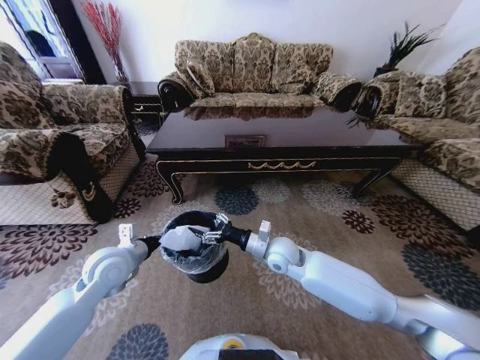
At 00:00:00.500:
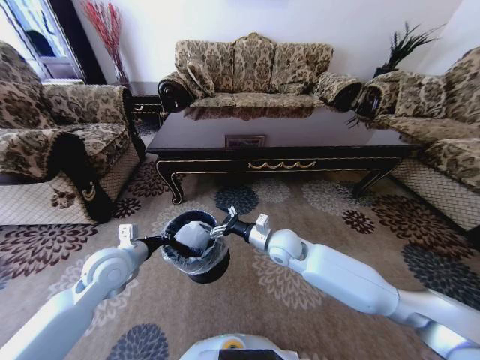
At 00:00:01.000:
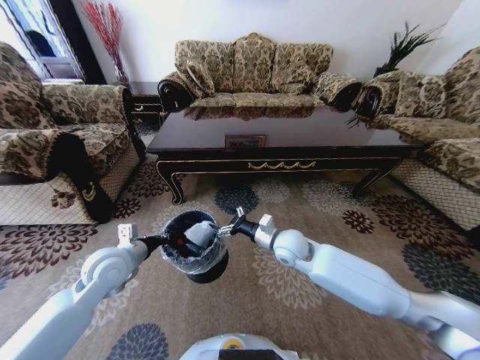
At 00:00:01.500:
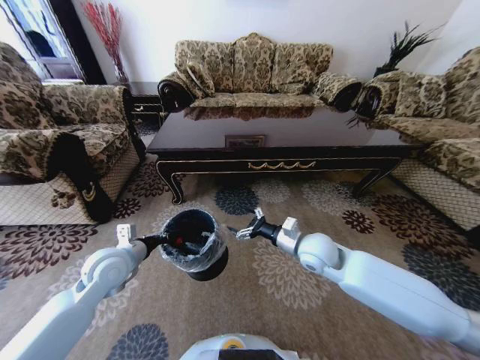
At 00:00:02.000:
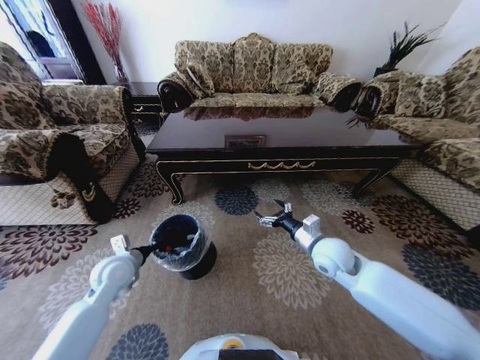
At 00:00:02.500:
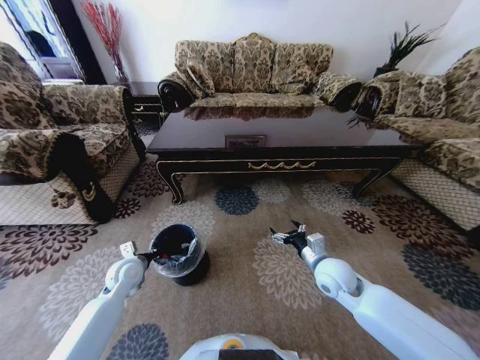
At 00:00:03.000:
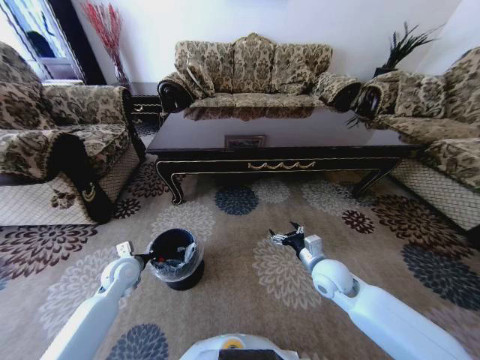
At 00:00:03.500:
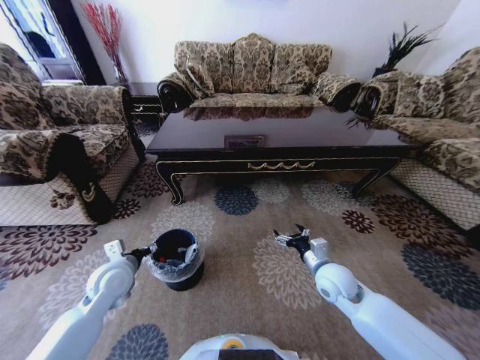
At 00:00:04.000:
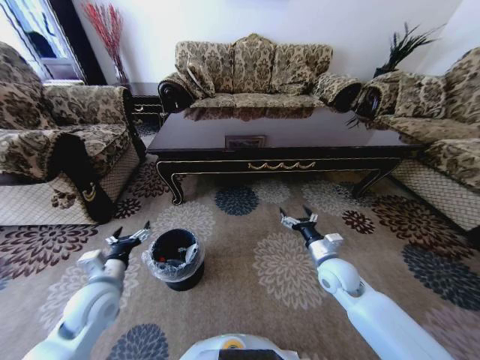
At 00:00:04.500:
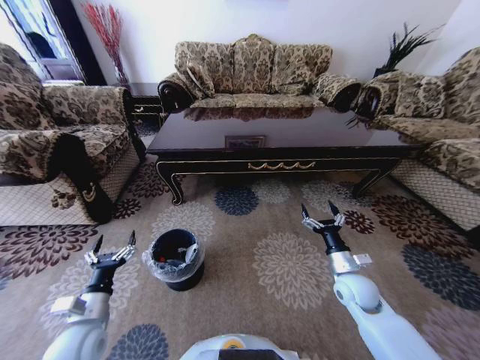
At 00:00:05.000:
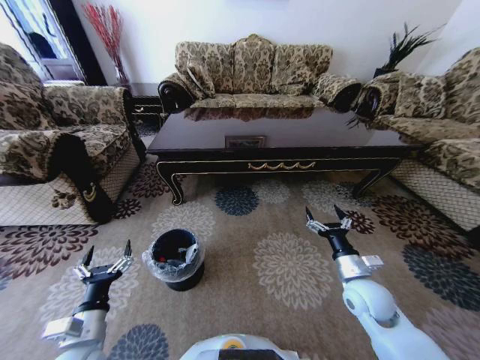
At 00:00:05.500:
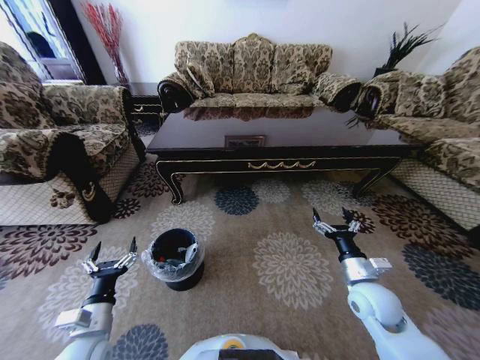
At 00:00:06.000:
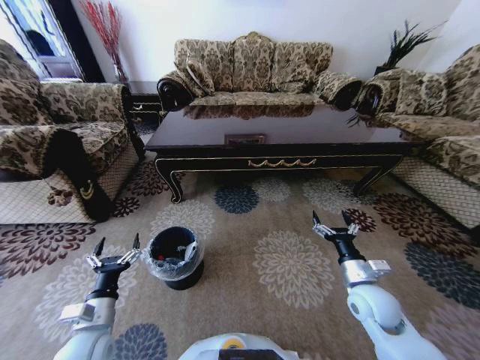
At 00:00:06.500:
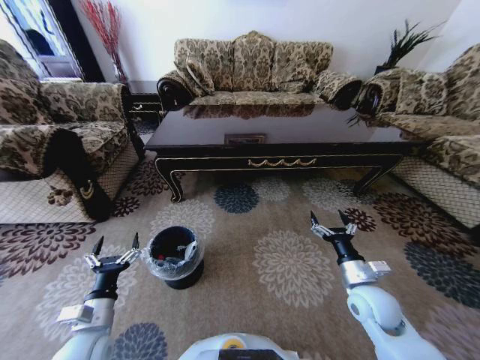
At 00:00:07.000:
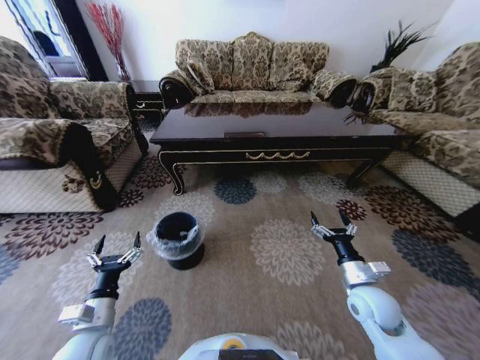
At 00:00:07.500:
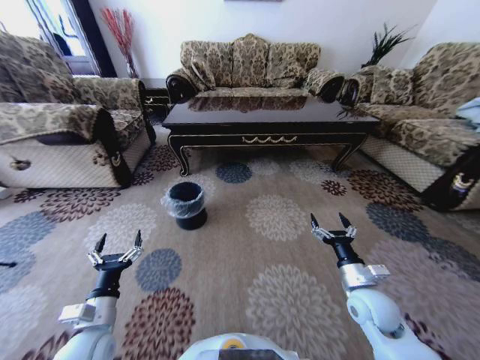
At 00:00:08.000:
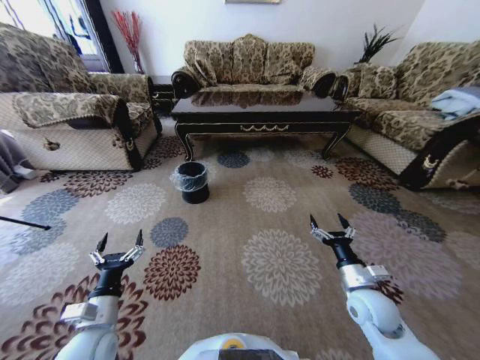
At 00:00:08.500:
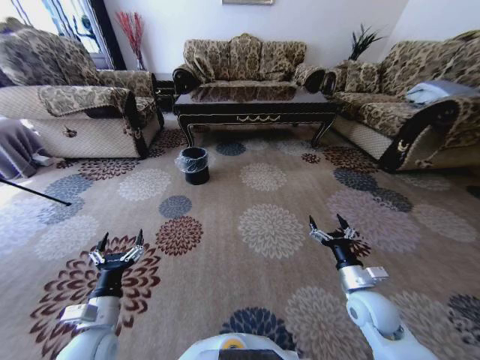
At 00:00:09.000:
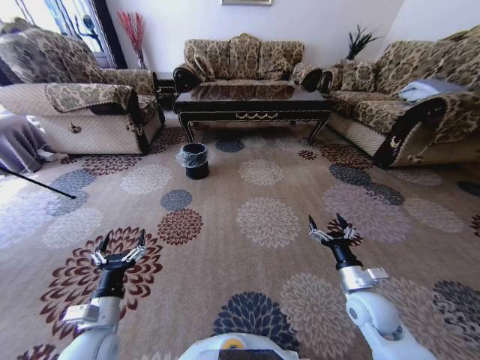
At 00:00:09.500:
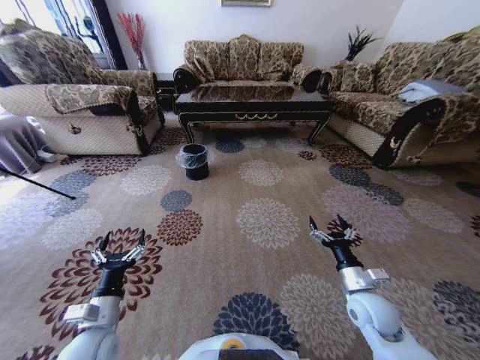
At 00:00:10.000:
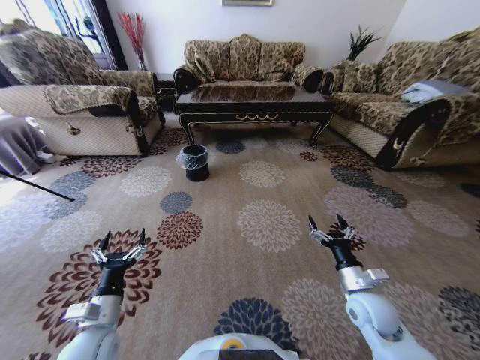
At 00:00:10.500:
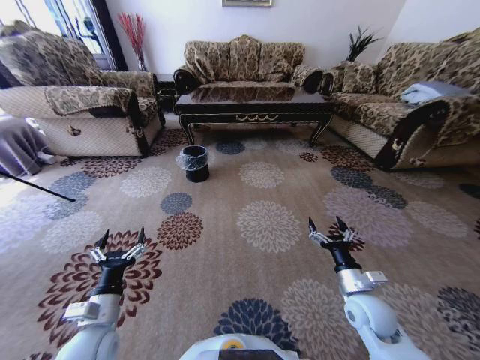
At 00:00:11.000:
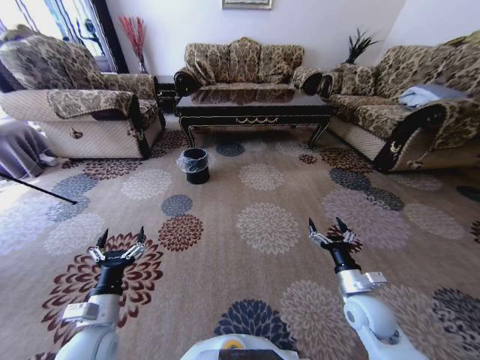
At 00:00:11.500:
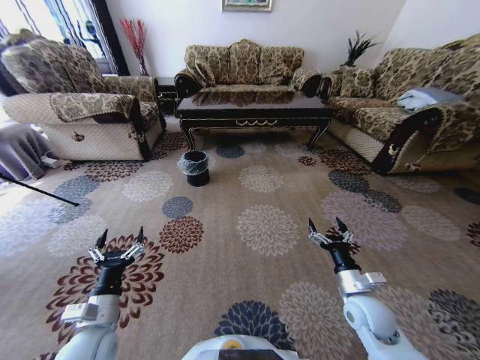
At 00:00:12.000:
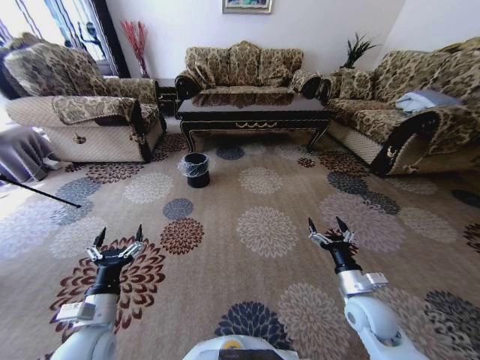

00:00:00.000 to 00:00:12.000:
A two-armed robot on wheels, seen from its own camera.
Task of the whole recording: Move to the front of the table and pick up the trash from the floor, then place it into the trash bin.
00:00:00.000 to 00:00:02.000: The right gripper shifts some 10 cm to the right. Meanwhile the left gripper travels downward by roughly 5 cm.
00:00:02.000 to 00:00:04.000: The left gripper heads backward, covering some 10 cm, and opens up. Meanwhile the right gripper shifts roughly 5 cm downward.
00:00:04.000 to 00:00:06.000: The right gripper travels backward by about 5 cm. Meanwhile the left gripper goes approximately 10 cm backward and downward.
